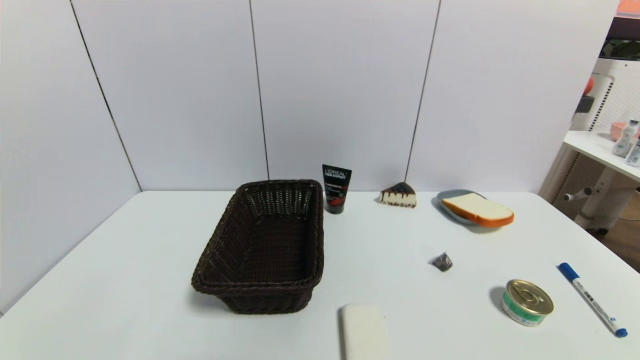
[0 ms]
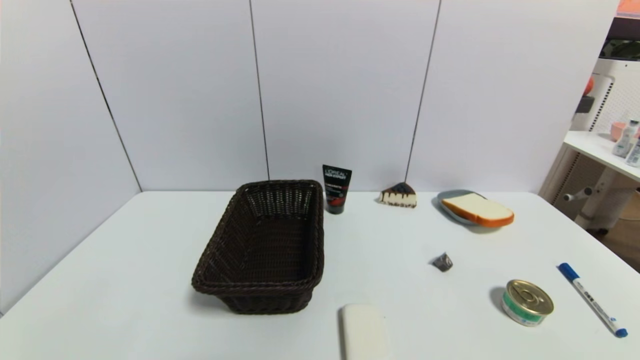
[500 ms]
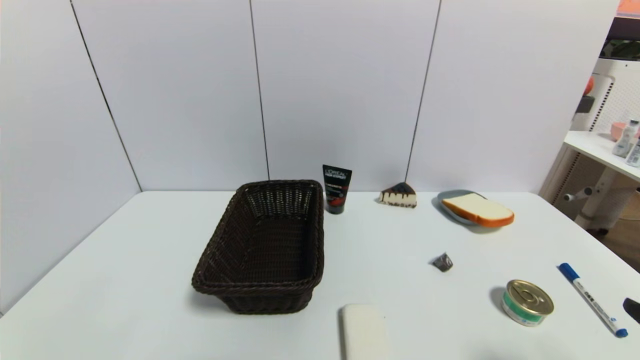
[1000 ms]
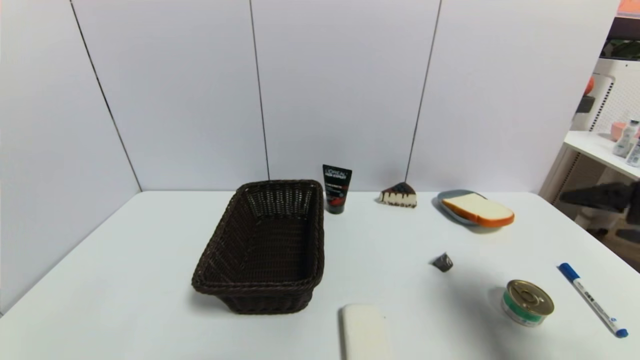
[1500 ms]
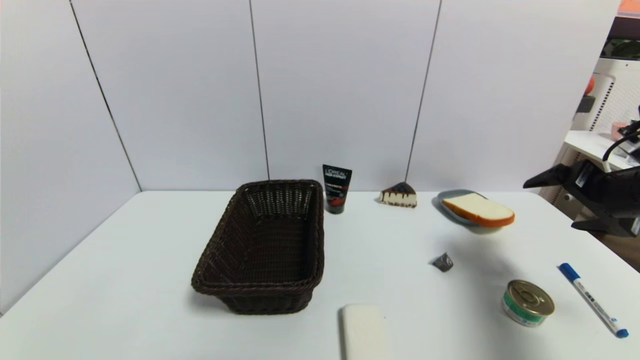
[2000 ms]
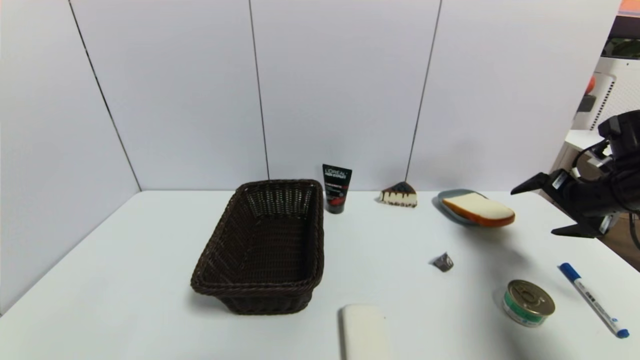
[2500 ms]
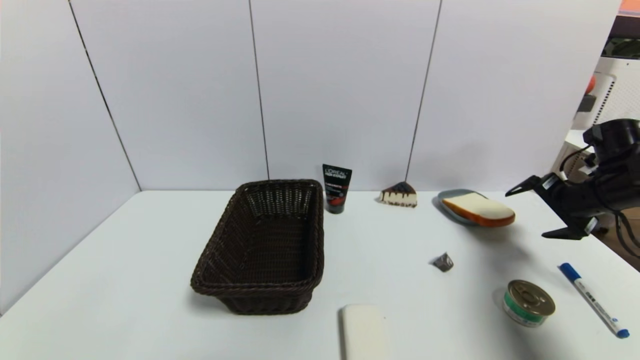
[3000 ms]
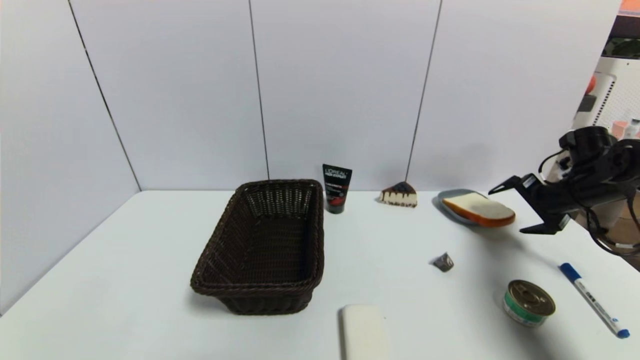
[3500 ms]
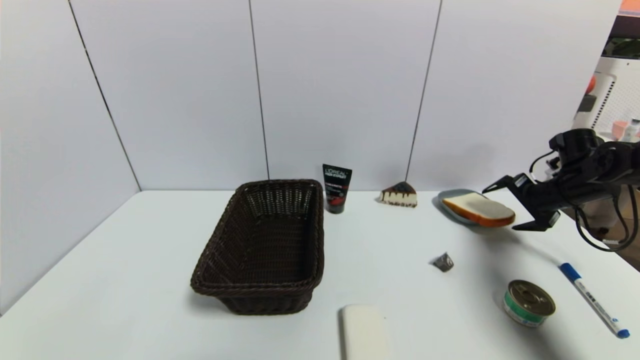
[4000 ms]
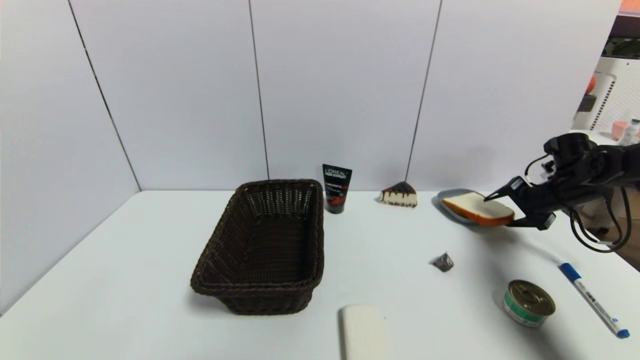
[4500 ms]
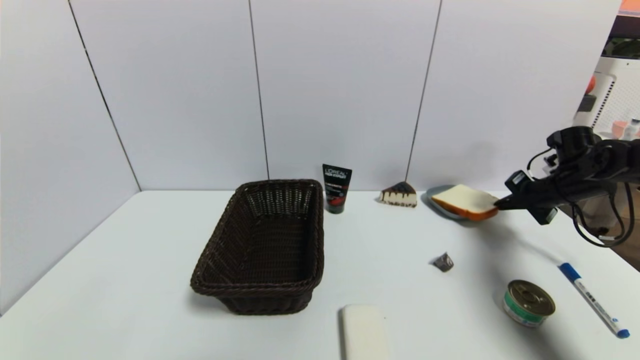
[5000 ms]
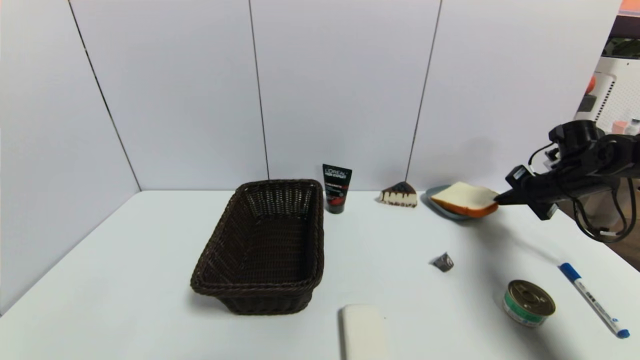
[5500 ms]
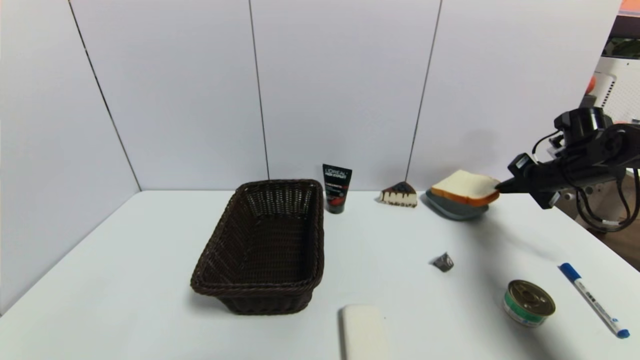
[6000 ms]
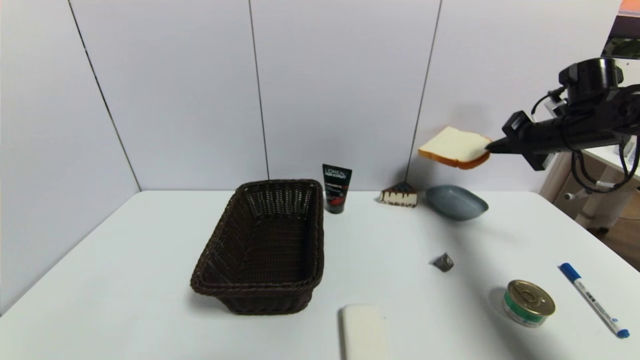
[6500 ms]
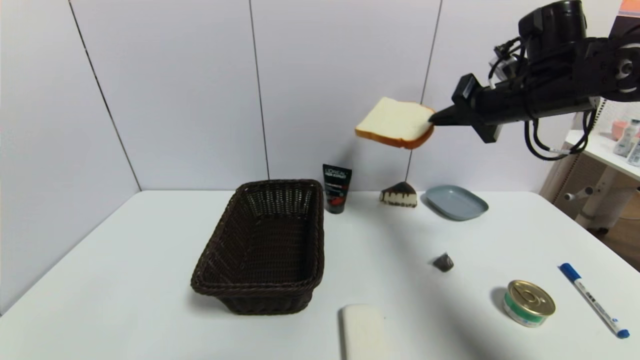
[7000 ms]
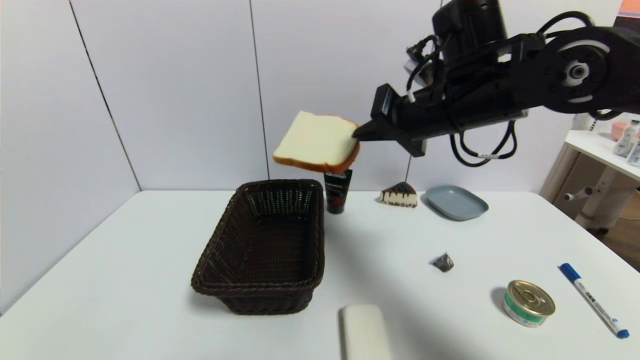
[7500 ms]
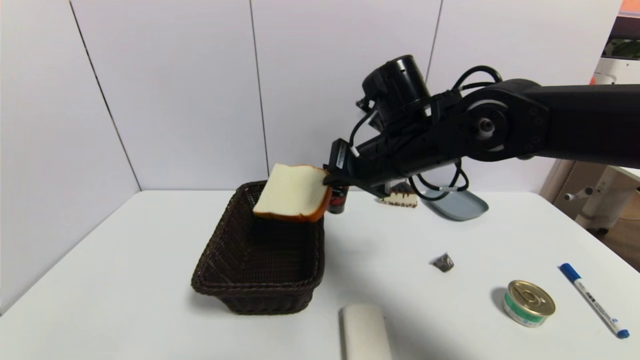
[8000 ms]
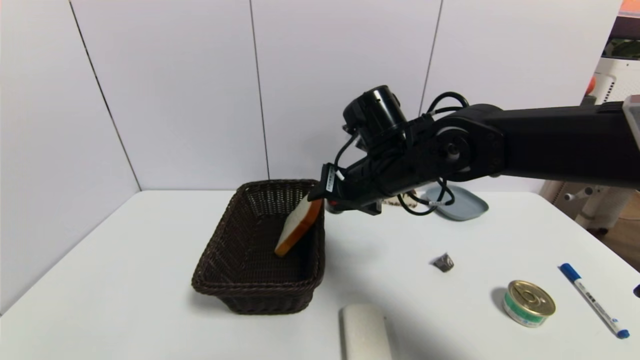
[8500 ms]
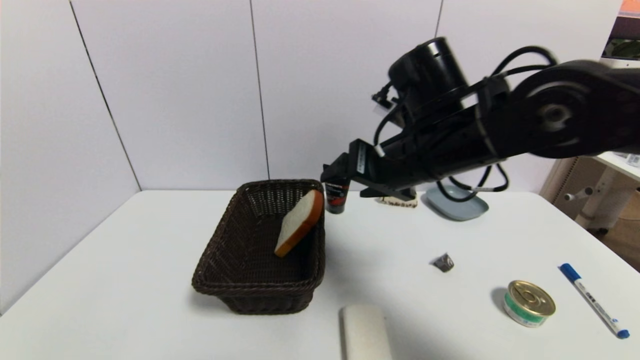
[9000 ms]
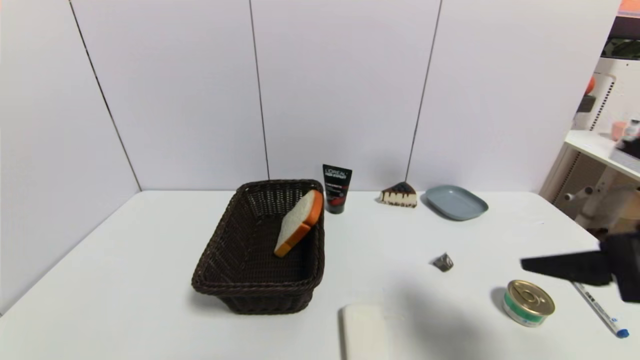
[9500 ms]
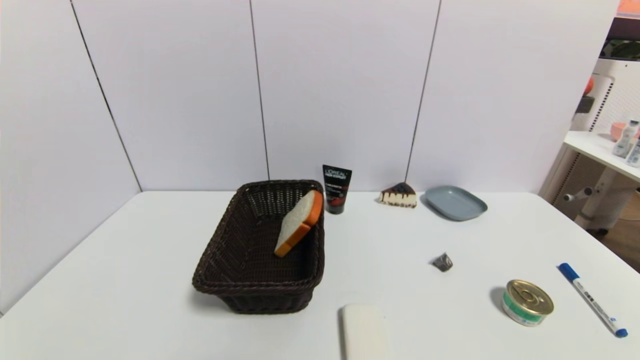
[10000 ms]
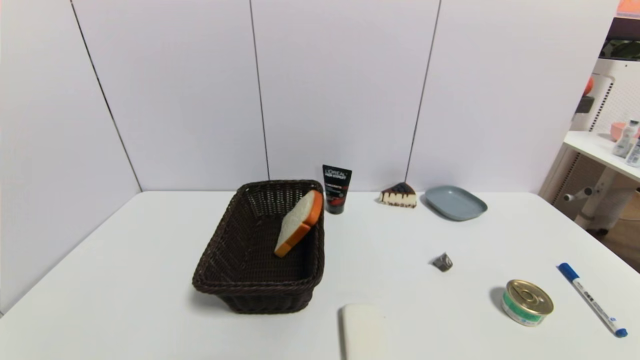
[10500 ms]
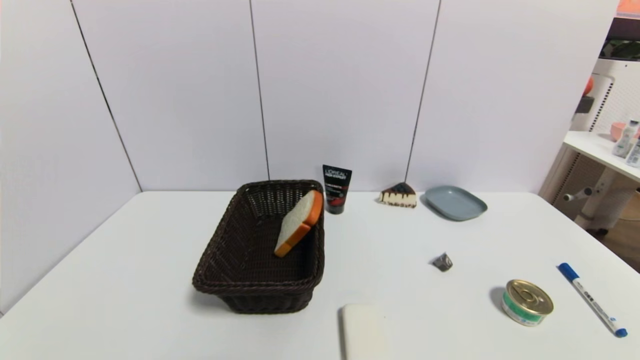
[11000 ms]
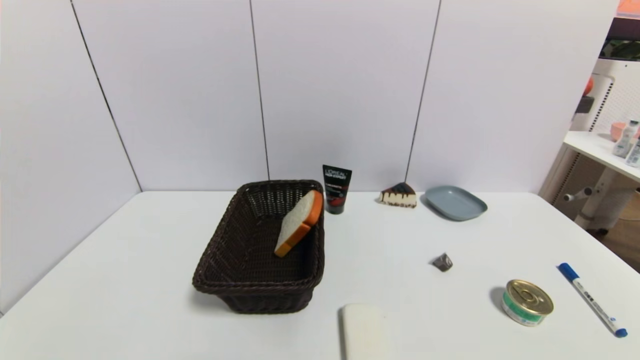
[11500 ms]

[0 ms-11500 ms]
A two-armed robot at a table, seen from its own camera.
Task of the whole recording: use a gripper to pick the target object and place on the brown basket.
Step, 0 ms to 5000 ms: Grasp the bread slice with the right gripper.
Step, 5500 ms to 9000 ms: Place the bread slice into the basket with the right gripper.
0 ms to 2000 ms: The right gripper goes some 30 cm forward and upward.
2000 ms to 4000 ms: The right gripper travels forward, downward and to the right by approximately 20 cm.
4000 ms to 6000 ms: The right gripper closes its fingers.
6000 ms to 7500 ms: The right gripper shifts about 30 cm to the left and upward.
7500 ms to 9500 ms: The right gripper shifts about 25 cm backward and to the right, and opens up.
9500 ms to 11500 ms: The right gripper heads downward and backward, covering roughly 20 cm.
